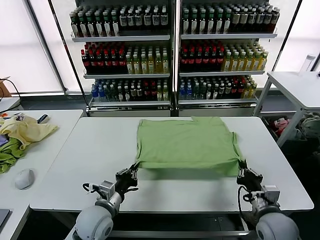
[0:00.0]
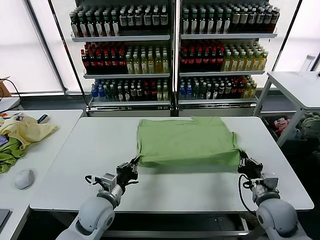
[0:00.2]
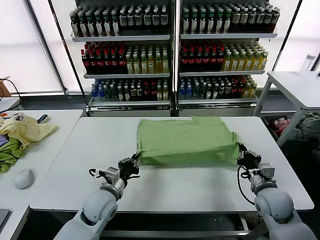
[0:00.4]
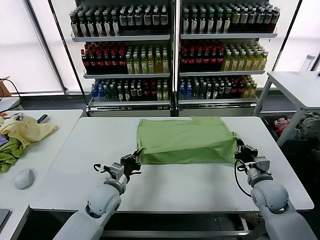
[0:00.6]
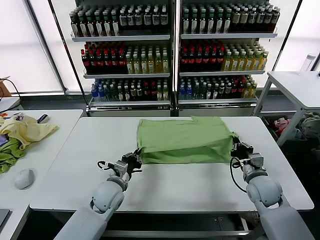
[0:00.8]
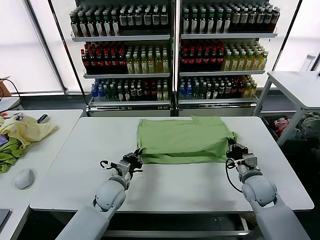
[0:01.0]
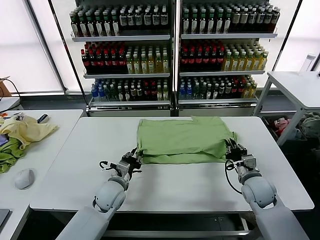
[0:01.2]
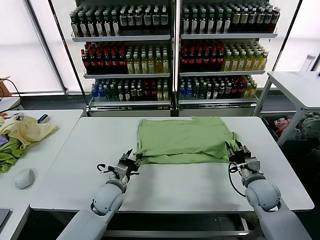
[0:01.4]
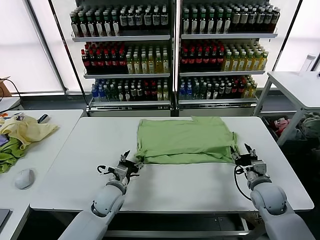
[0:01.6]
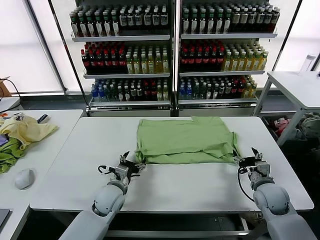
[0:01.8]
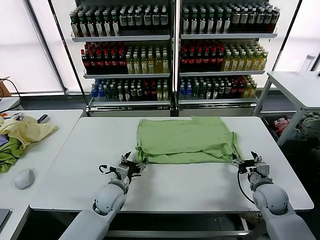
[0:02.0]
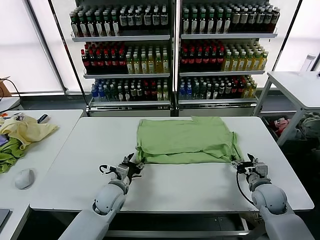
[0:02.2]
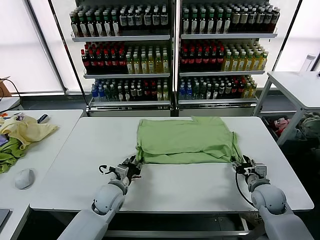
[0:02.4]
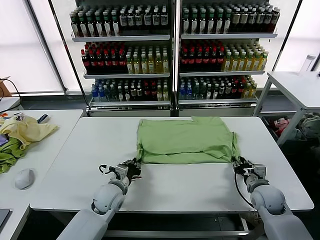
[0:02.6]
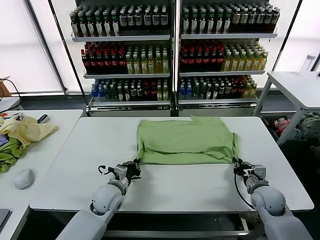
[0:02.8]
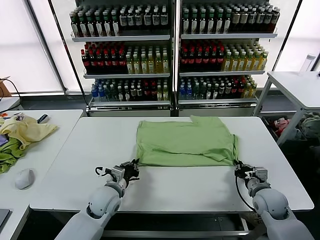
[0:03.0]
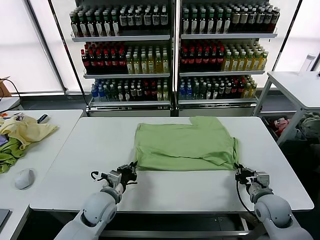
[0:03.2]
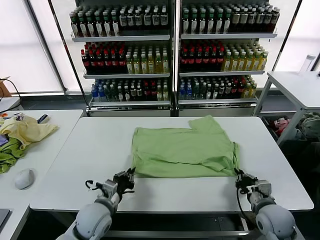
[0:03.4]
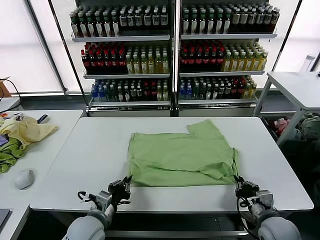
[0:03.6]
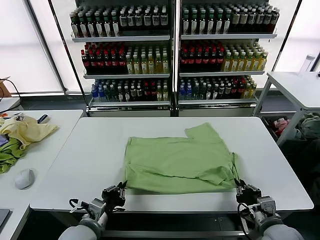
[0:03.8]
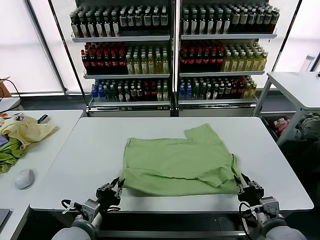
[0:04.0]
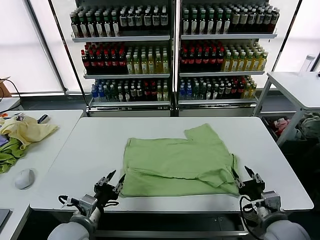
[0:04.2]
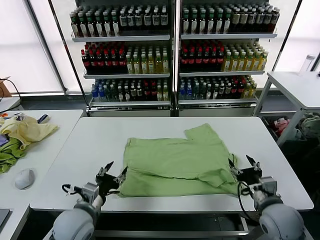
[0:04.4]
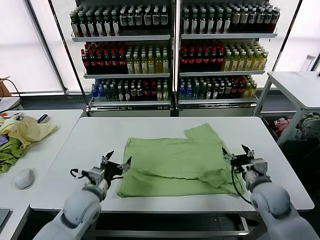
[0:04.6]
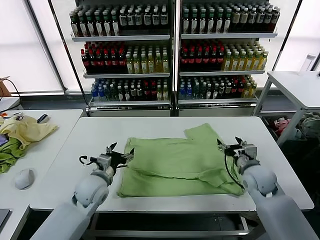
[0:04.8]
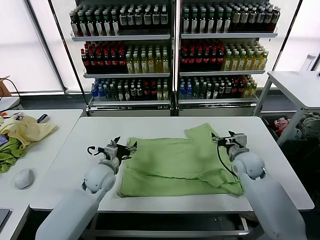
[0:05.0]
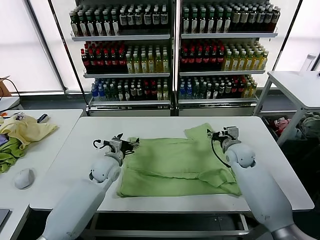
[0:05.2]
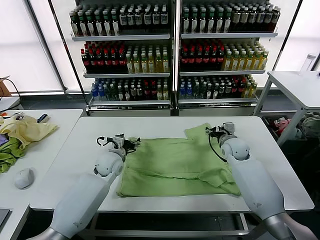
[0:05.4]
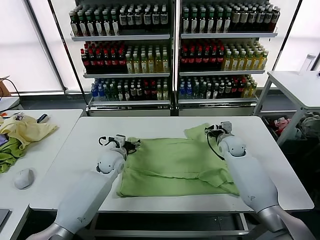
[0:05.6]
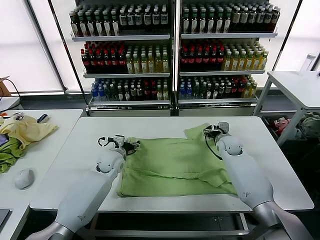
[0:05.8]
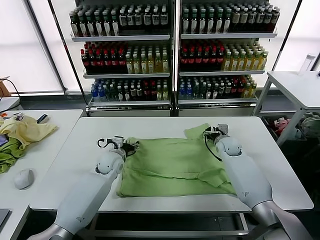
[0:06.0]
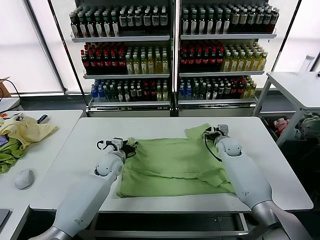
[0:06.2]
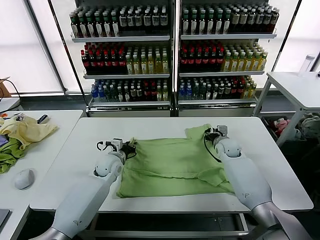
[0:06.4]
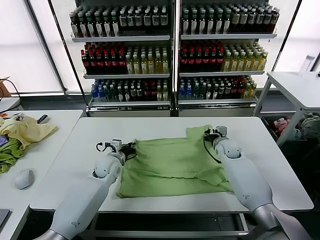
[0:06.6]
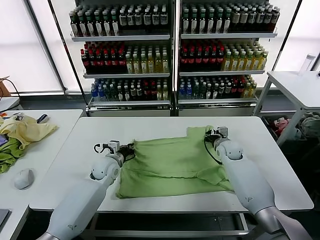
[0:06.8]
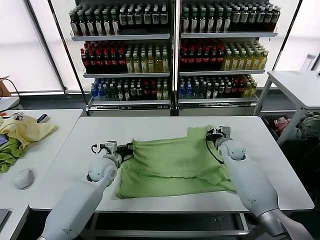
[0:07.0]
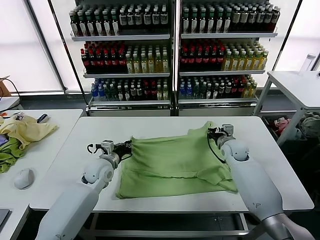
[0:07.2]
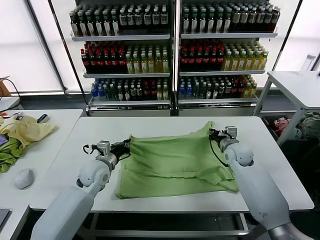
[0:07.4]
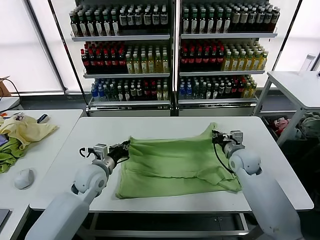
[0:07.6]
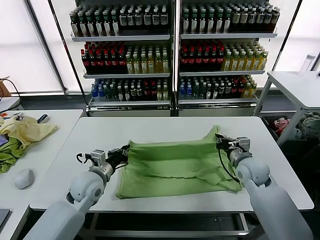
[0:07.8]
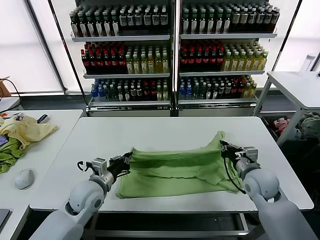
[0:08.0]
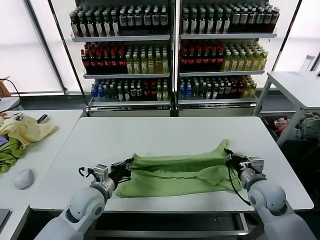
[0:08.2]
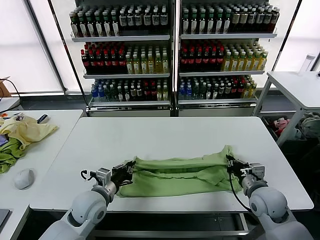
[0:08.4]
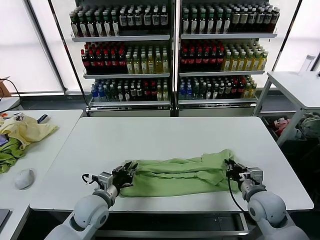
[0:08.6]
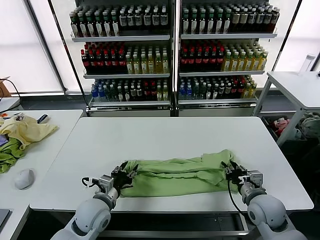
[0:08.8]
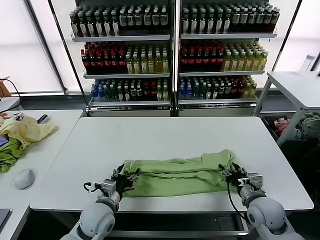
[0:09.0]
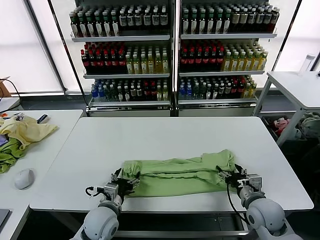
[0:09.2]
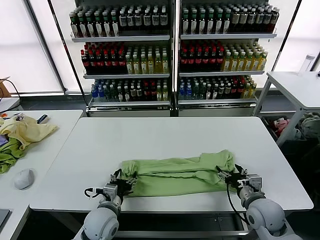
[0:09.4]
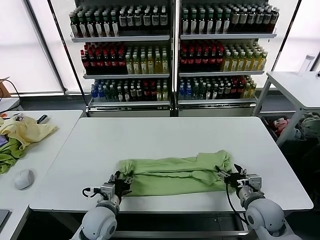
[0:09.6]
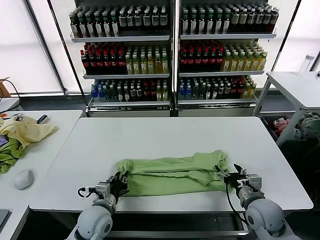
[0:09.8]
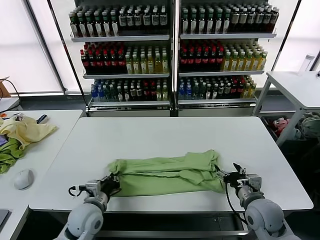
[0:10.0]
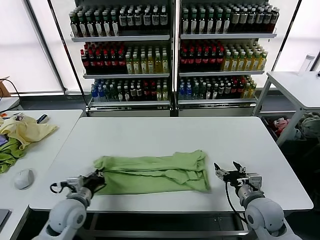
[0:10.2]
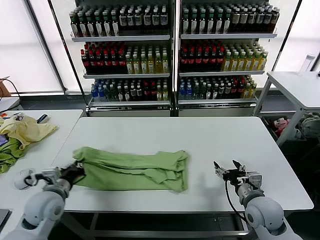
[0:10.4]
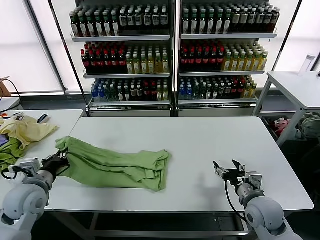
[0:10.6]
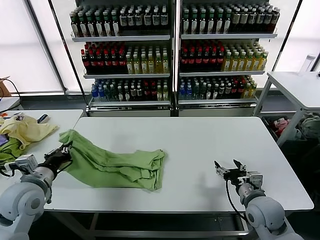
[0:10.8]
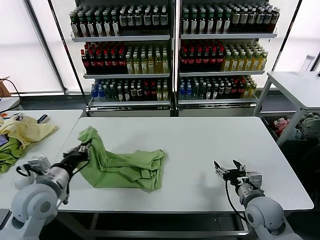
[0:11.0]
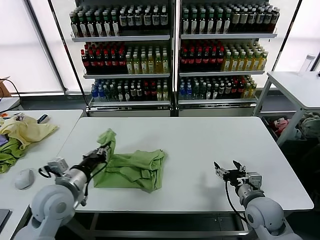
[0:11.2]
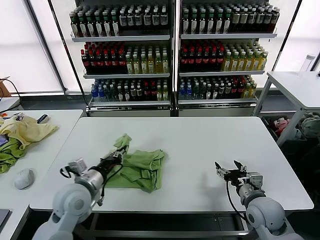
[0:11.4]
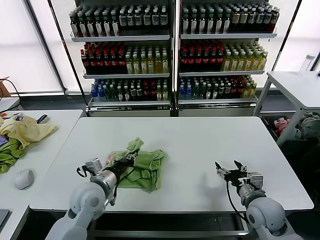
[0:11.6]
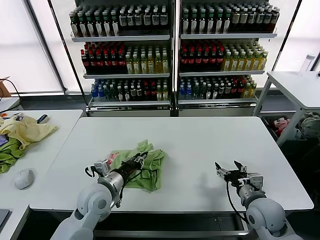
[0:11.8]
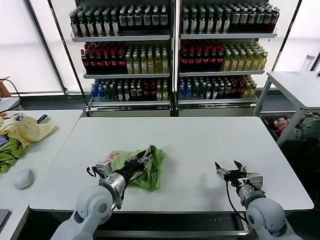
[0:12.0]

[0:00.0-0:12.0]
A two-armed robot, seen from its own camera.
Task of the whole recording: fold and organize the clothes.
Step, 0:00.0 to 0:01.4: use both grippers to drag the lower edge of the fabric forward and fold it over the upper edge.
Step, 0:01.8 to 0:04.0: Drag the clothes downward with both gripper.
Step, 0:04.2 to 0:06.8: use both grippers simultaneously to clamp the upper edge of the clothing fabric.
Step, 0:07.0 to 0:08.8: use both grippers to drag the upper edge of the fabric backward and fold it over the lower edge.
Step, 0:09.2 to 0:10.0: use the left gripper to clamp the left edge of the fabric.
Step, 0:10.2 to 0:12.0: use the left gripper to drag the left edge of the fabric to the left and folds it over the right edge.
0:00.0 to 0:01.6: The grippers both shift forward by about 10 cm. The left gripper opens; the right gripper opens up.
0:01.6 to 0:03.0: The right gripper closes up, while the left gripper closes its fingers.
0:03.0 to 0:04.4: The left gripper travels backward and upward by approximately 10 cm, and opens up. Meanwhile the right gripper moves upward, some 5 cm, and opens its fingers.
0:04.4 to 0:06.0: The two grippers go roughly 25 cm forward.
0:06.0 to 0:07.6: The two grippers go approximately 10 cm backward. The left gripper closes up. Meanwhile the right gripper closes.
0:07.6 to 0:09.0: The right gripper shifts some 15 cm backward, and opens, while the left gripper travels backward and downward by approximately 10 cm, and opens its fingers.
0:09.0 to 0:10.4: The left gripper goes approximately 15 cm to the left, and closes.
0:10.4 to 0:12.0: The left gripper is displaced to the right by some 15 cm, and opens.

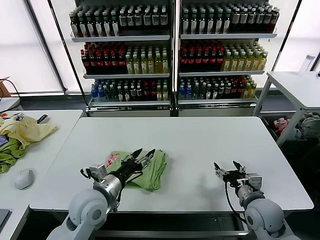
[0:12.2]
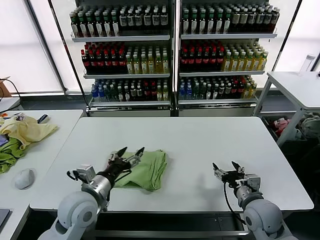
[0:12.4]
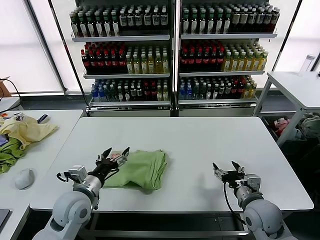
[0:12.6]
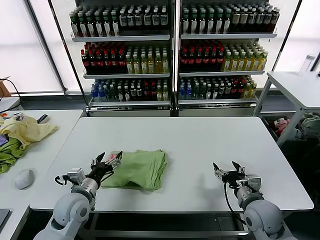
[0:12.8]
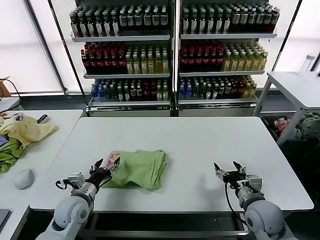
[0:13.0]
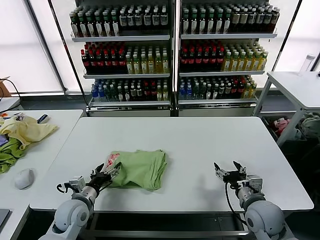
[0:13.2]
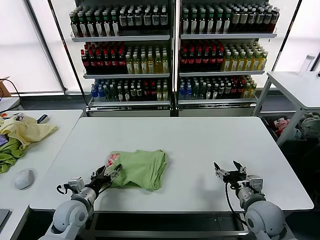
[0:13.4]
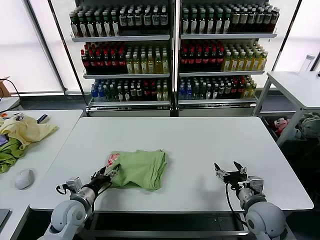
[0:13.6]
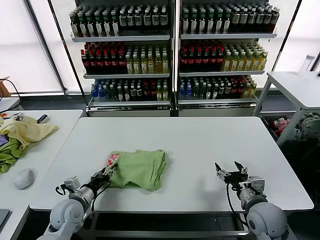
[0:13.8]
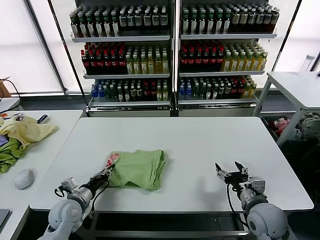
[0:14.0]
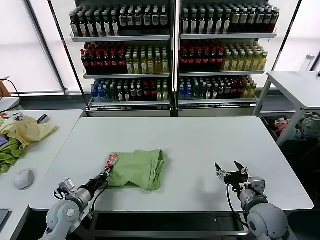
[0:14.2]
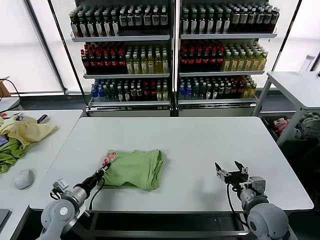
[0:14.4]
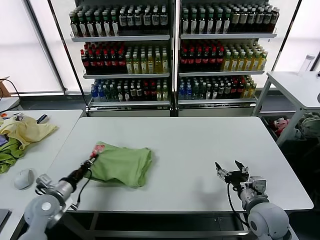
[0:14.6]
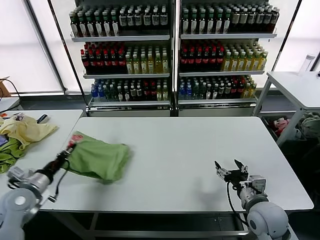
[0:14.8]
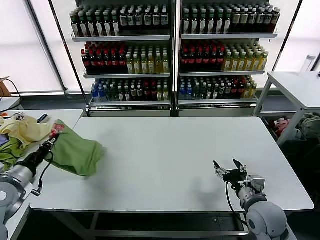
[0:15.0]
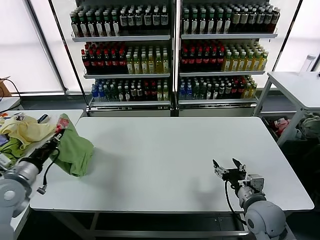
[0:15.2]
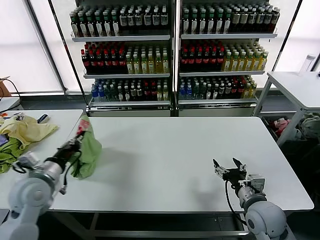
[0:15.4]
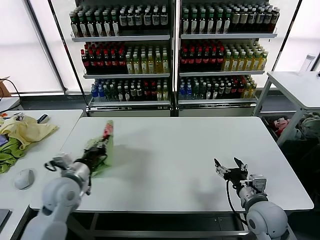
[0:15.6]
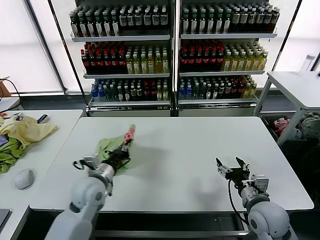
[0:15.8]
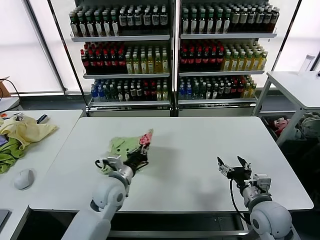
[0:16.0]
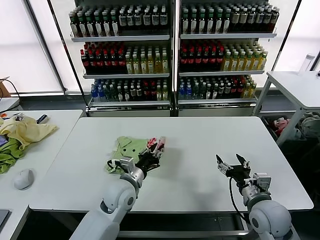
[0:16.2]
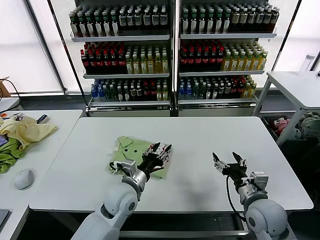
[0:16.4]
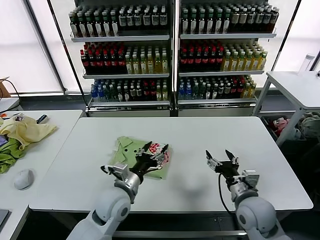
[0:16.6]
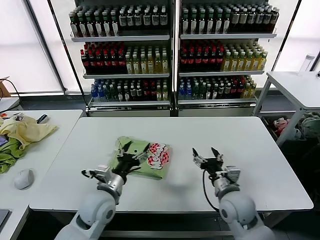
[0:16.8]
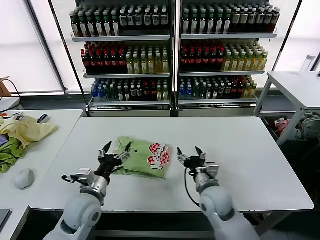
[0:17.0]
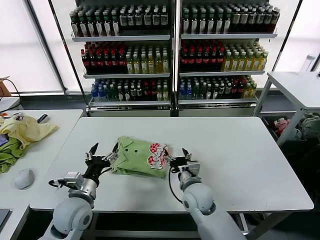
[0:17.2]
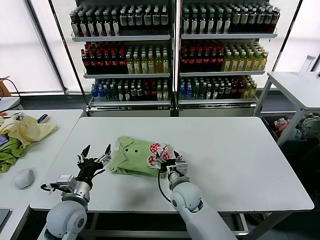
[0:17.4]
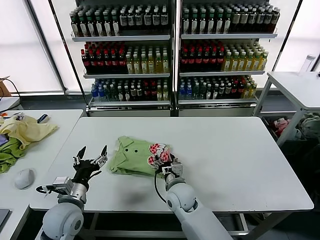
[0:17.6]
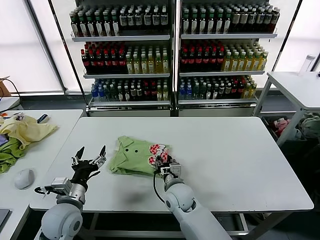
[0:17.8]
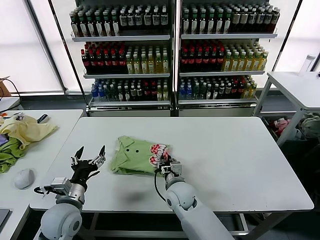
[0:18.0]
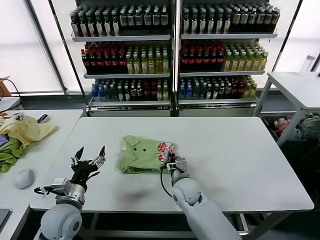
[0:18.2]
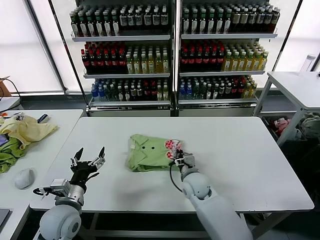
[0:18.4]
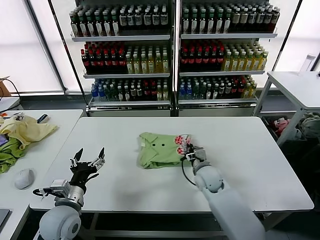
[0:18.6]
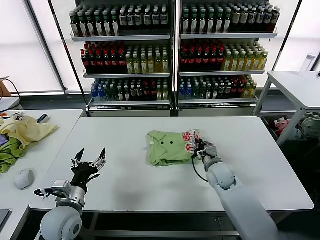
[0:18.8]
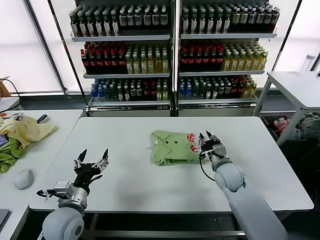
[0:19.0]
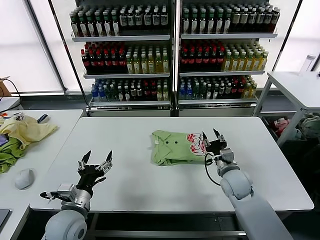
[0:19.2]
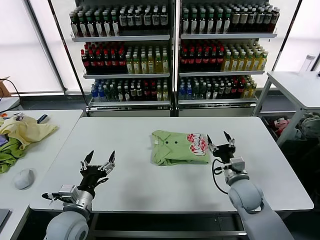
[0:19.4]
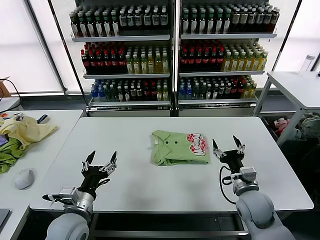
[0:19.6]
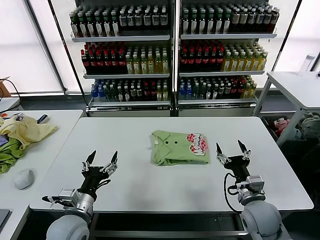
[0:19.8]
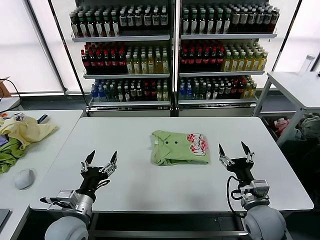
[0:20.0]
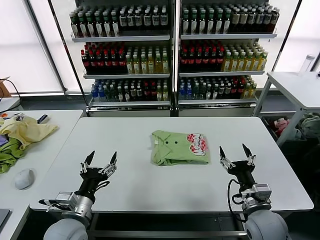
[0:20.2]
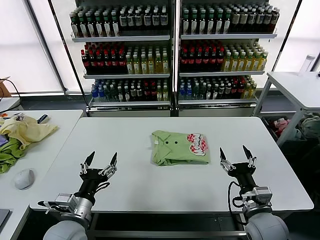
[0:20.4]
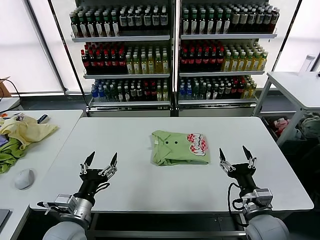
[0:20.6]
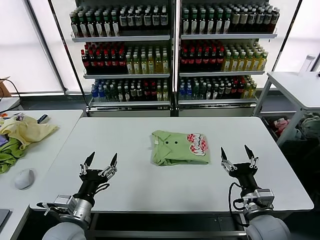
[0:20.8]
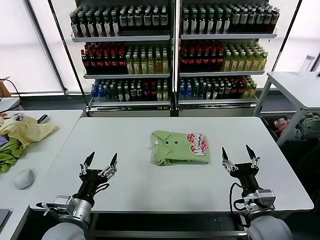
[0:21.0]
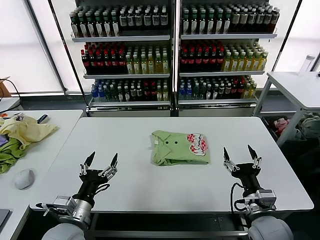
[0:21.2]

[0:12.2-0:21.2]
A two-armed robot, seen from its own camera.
Task of the whole recording: fold and organize the clothes.
Step, 0:12.2 to 0:16.2: Flip the folded clothes over with left gripper.
Step, 0:16.4 to 0:19.0: Drag the clothes to the center of the table.
0:12.2 to 0:13.8: The left gripper heads to the left and downward, covering roughly 15 cm.
0:13.8 to 0:15.2: The left gripper shifts about 20 cm upward and to the left, and closes its fingers.
0:15.2 to 0:16.6: The left gripper shifts roughly 30 cm to the right, and opens its fingers.
0:16.6 to 0:18.2: The right gripper shifts approximately 25 cm to the left, forward and downward, and closes its fingers, while the left gripper heads to the left, covering some 15 cm.
0:18.2 to 0:19.8: The right gripper shifts roughly 25 cm to the right and backward, and opens up.
0:19.8 to 0:21.2: The right gripper heads backward, covering approximately 5 cm.
